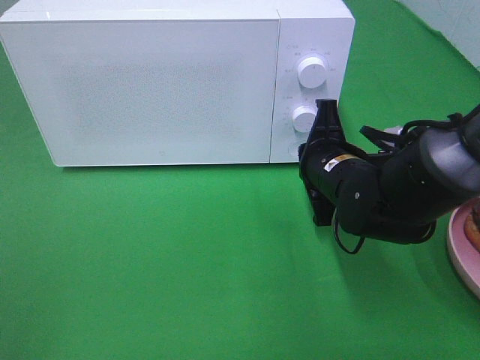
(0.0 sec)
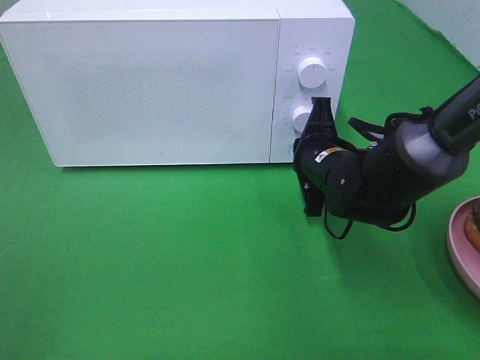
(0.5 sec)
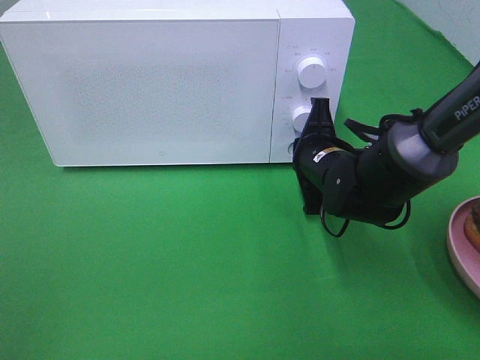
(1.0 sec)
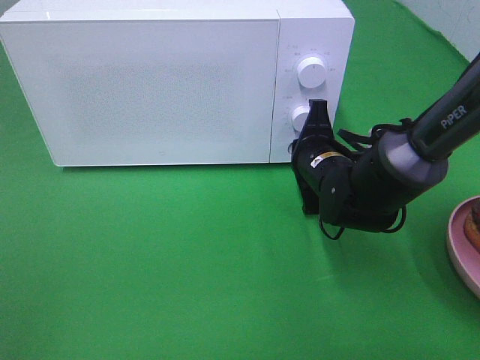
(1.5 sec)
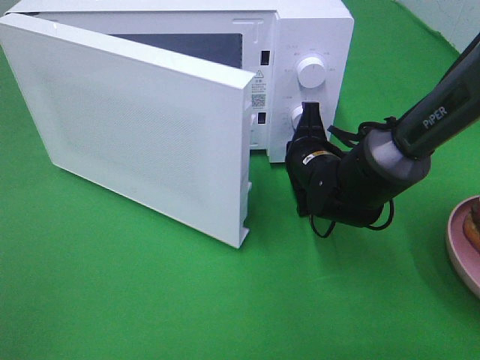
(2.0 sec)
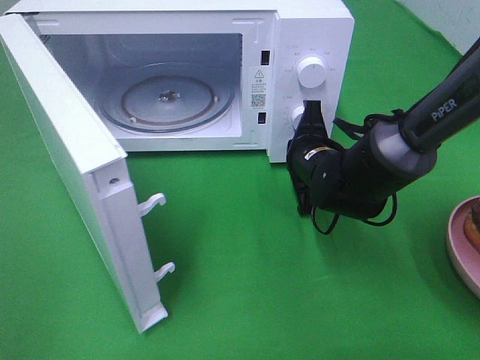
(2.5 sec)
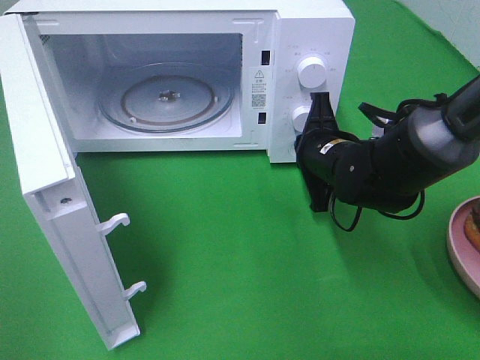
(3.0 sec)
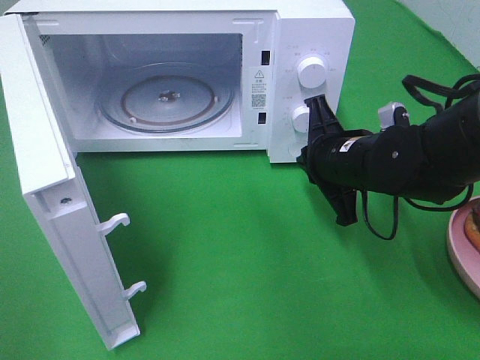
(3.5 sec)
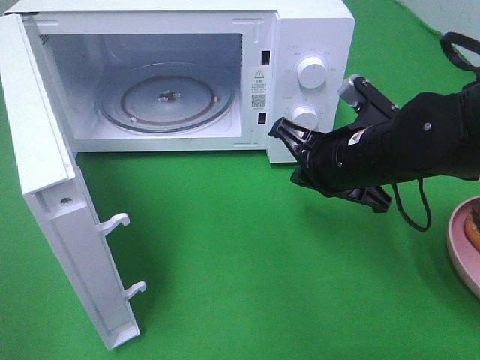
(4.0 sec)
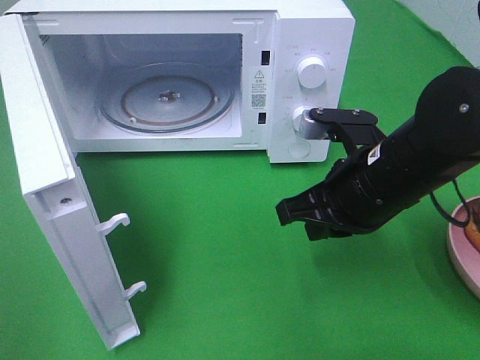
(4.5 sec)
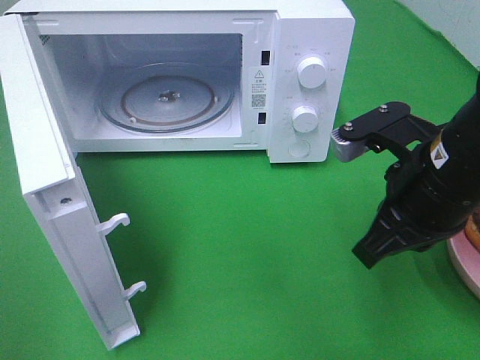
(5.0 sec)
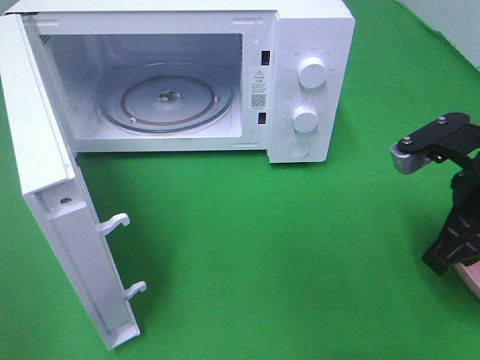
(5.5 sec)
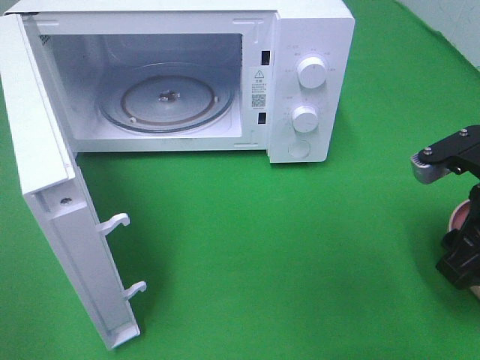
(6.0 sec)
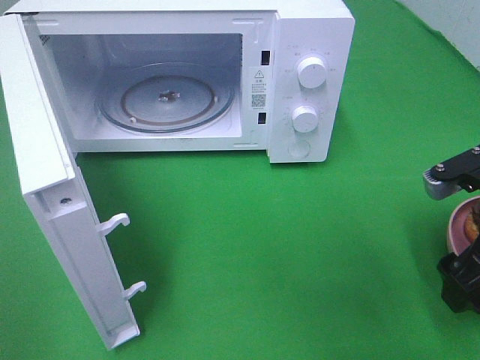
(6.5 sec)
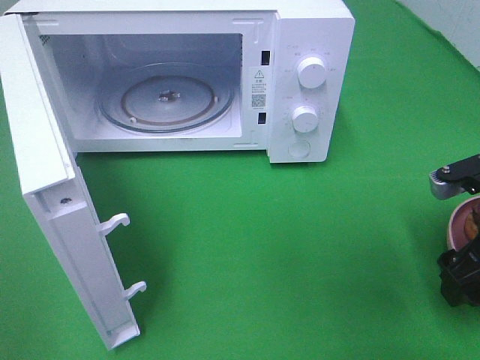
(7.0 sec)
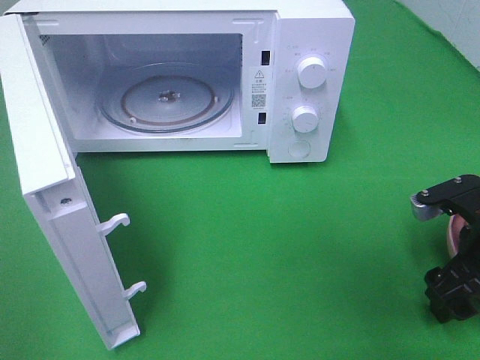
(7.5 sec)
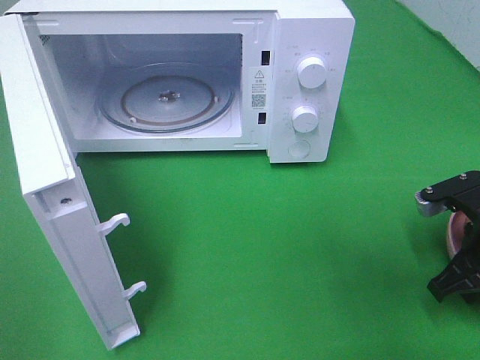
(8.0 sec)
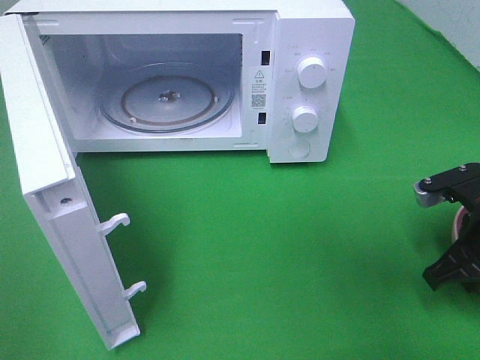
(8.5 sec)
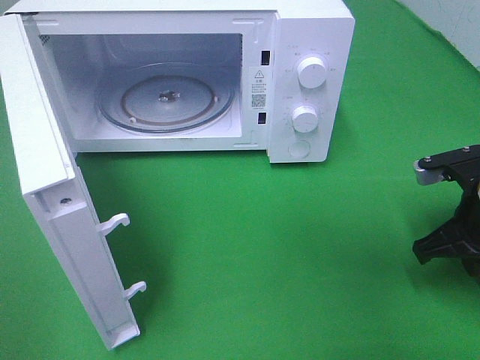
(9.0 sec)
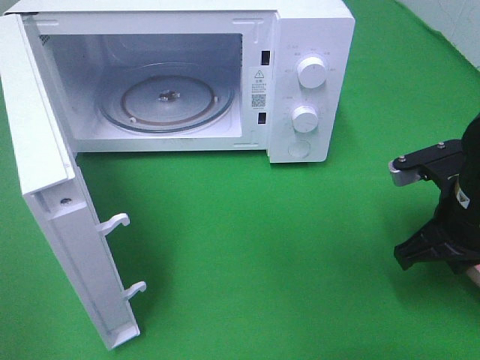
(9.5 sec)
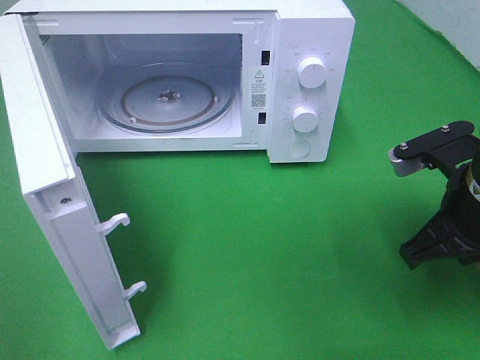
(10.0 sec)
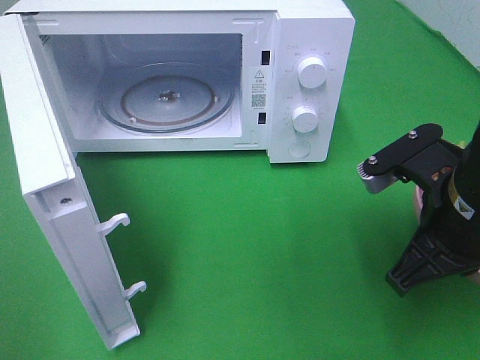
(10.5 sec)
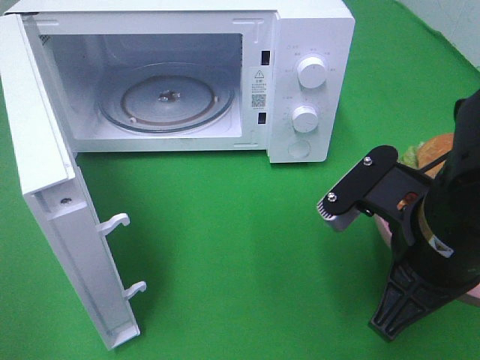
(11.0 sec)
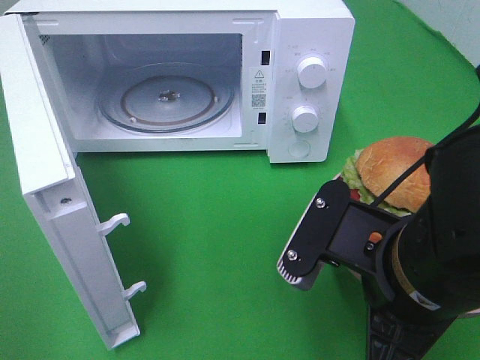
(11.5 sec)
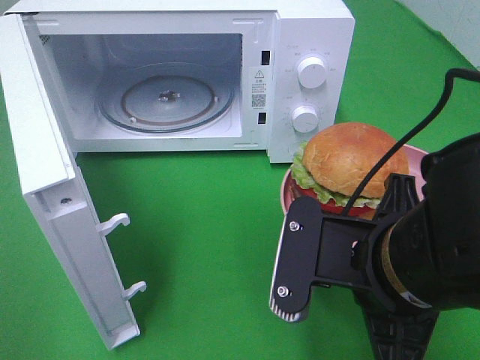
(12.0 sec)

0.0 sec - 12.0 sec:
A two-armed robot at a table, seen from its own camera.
Task of the whole recording: Heat the burger.
Step, 0.0 sec - 2.5 sec: Right hand: press the switch.
Step, 3.0 sec - 9.0 sec: Right hand: grab the plate with the hamburger.
0.0 sec - 2.0 sec: The right gripper moves approximately 5 cm.
2.0 sec - 4.0 sec: The right gripper goes approximately 10 cm upward and backward.
4.0 sec - 6.0 sec: The right gripper heads to the right and backward, covering roughly 15 cm, and opens up.
6.0 sec - 8.0 sec: The right gripper moves downward, some 10 cm, and closes up.
8.0 sec - 10.0 sec: The right gripper heads upward and to the left, covering about 10 cm.
10.0 sec - 12.0 sec: The right gripper moves to the left and backward, about 15 cm.

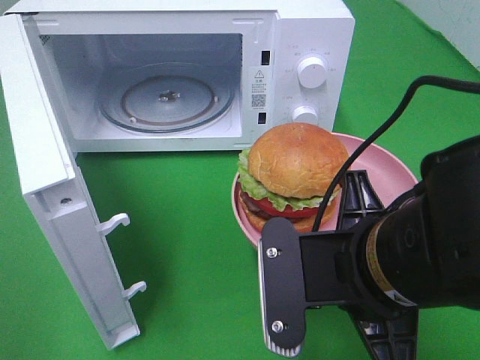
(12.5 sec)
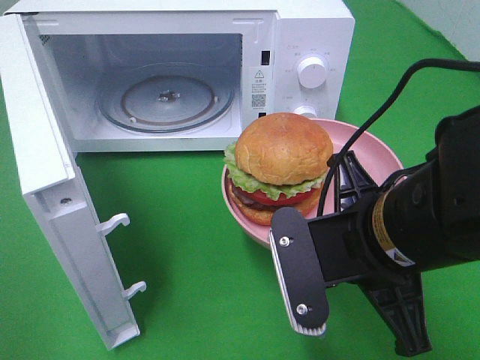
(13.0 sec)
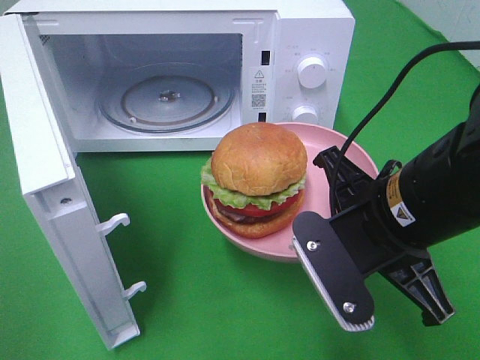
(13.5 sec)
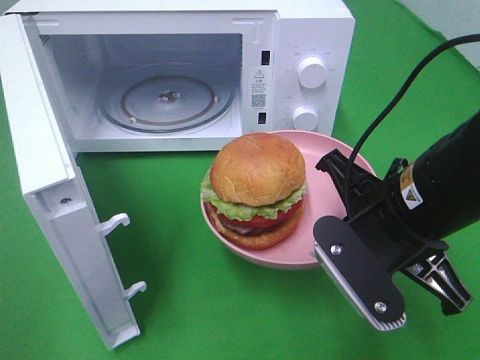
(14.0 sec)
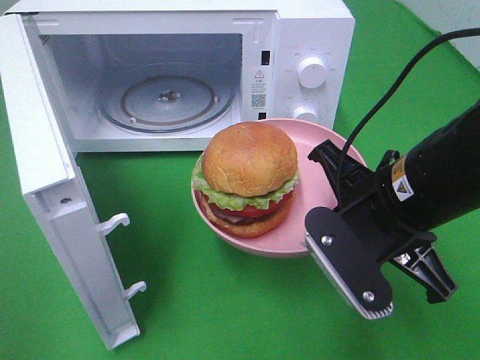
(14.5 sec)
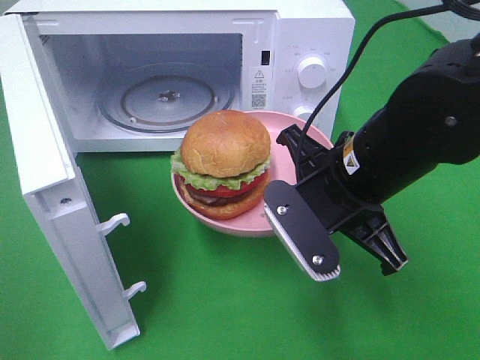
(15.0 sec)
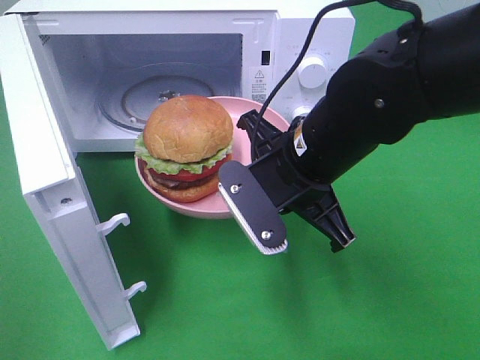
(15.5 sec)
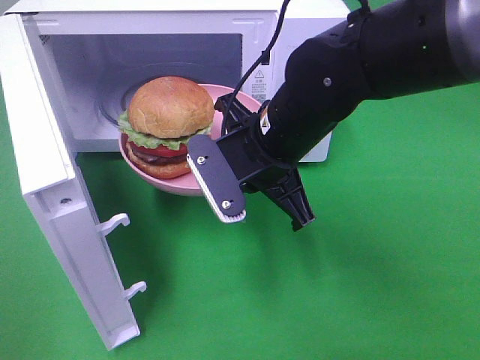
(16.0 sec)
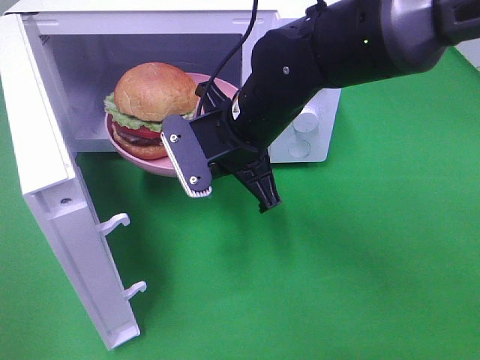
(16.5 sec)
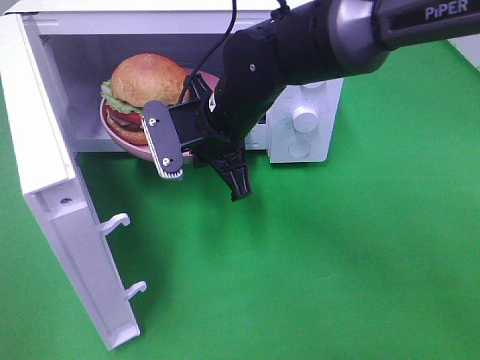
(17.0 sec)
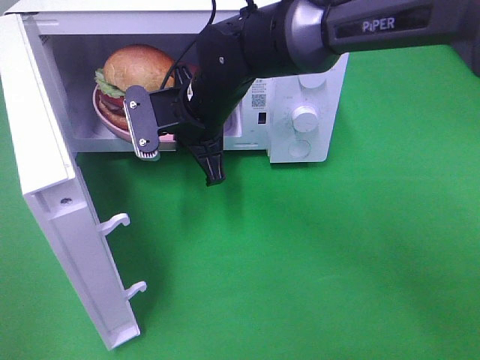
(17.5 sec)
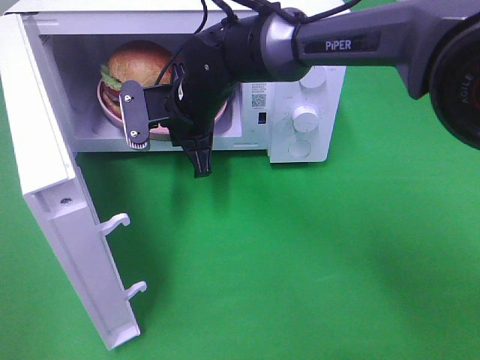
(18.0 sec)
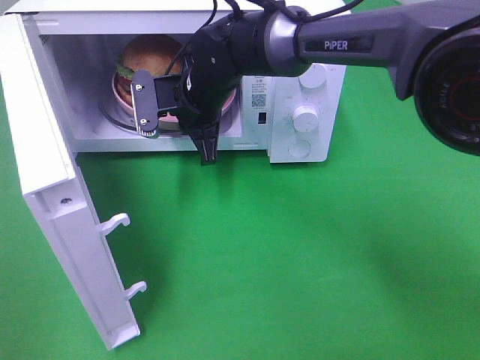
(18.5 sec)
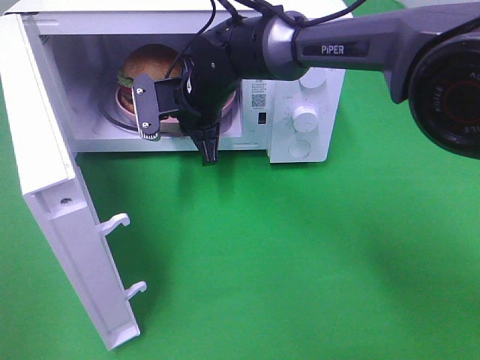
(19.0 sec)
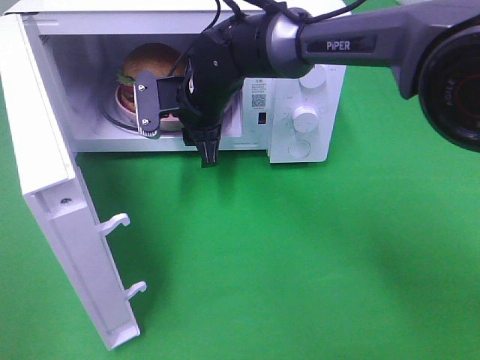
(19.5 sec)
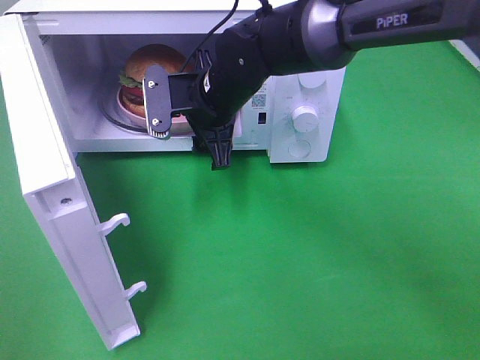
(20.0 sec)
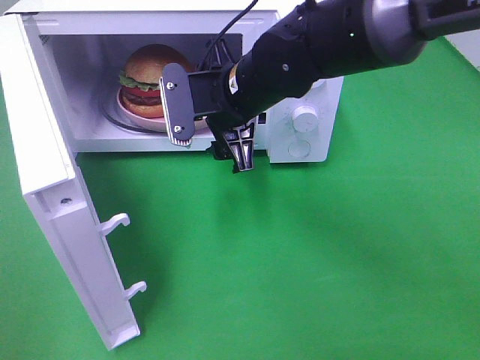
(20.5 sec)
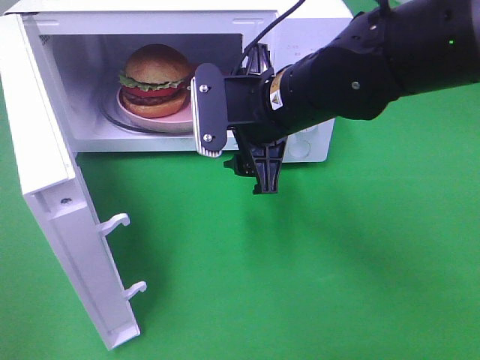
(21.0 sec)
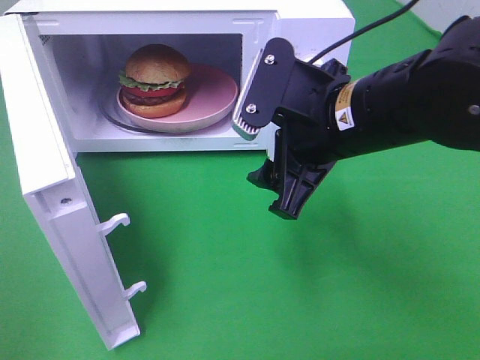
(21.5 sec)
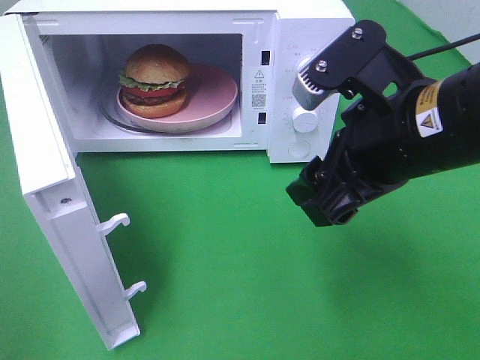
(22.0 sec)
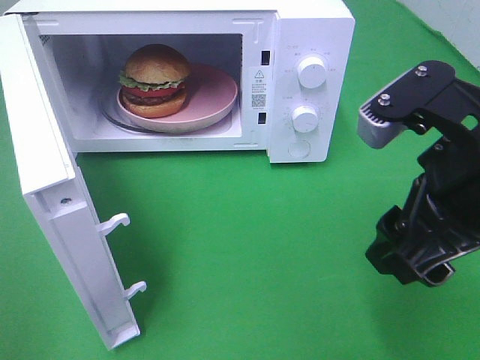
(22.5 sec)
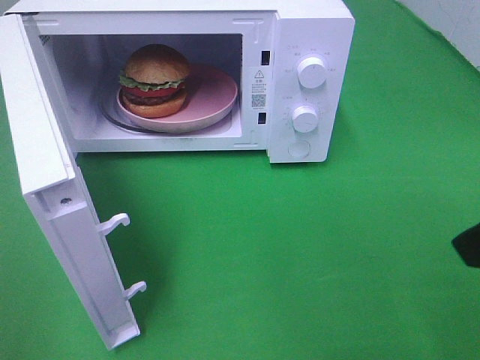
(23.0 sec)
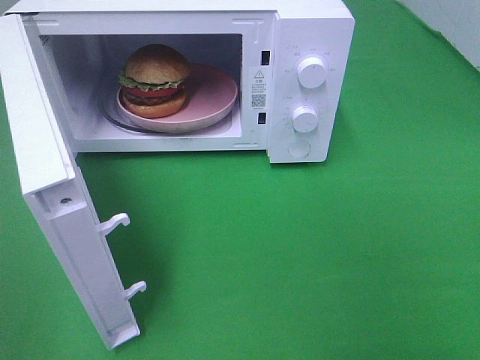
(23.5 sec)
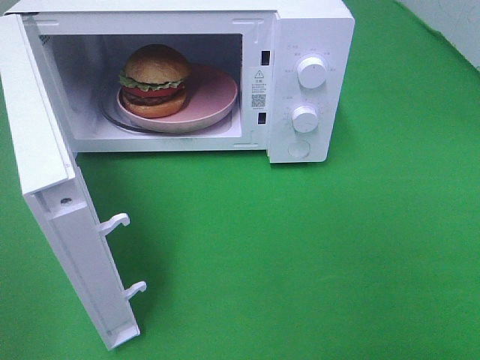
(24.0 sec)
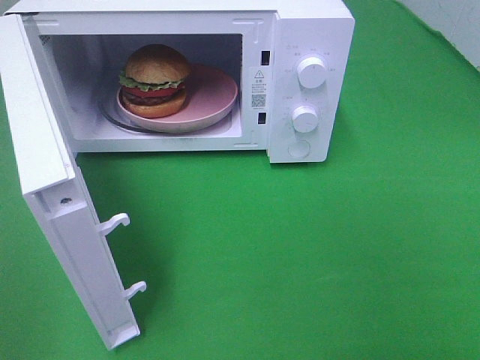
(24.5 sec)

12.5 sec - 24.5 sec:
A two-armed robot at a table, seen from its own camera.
Task of the whole recording: Heat the burger.
Step, 12.5 sec - 20.0 sec: Right hand: place the plate in the microwave.
12.5 sec - 14.5 sec: The right gripper is displaced forward by roughly 5 cm.
14.5 sec - 16.5 sec: The right gripper is displaced to the left and forward by roughly 15 cm.
16.5 sec - 18.5 sec: The right gripper goes approximately 10 cm forward and to the left.
18.5 sec - 20.5 sec: The right gripper heads backward and to the right, covering roughly 10 cm, and opens its fingers.
20.5 sec - 22.5 sec: The right gripper shifts some 25 cm backward and to the right.
22.5 sec - 24.5 sec: The right gripper is displaced backward and to the right by approximately 20 cm.

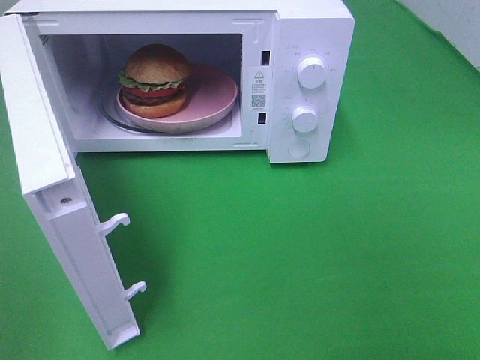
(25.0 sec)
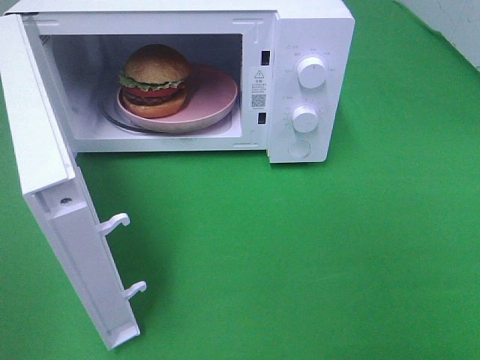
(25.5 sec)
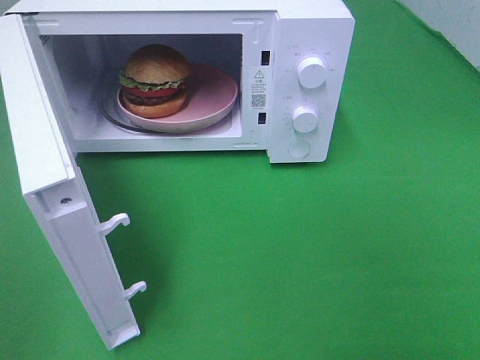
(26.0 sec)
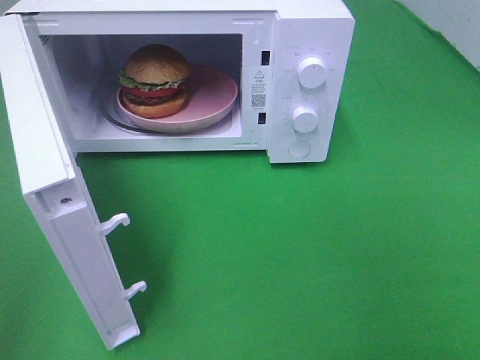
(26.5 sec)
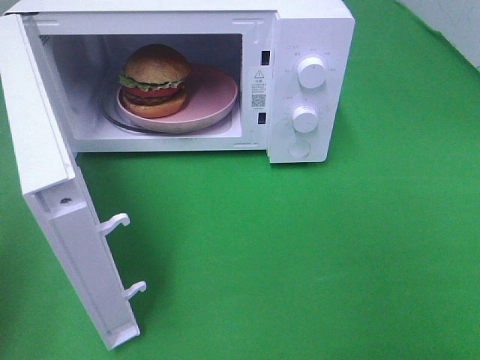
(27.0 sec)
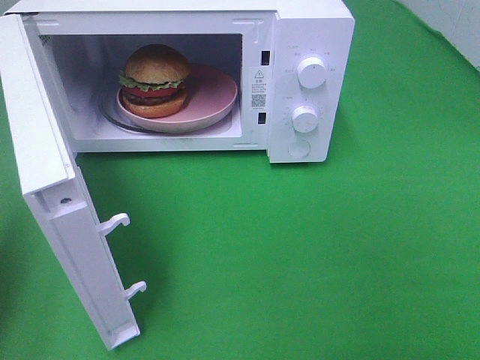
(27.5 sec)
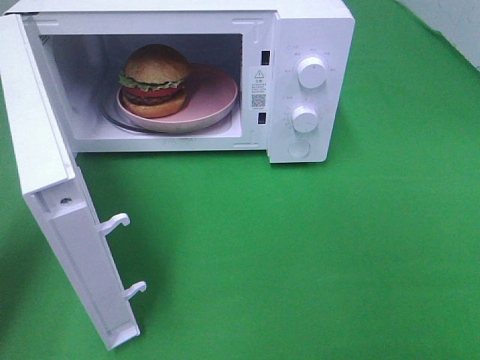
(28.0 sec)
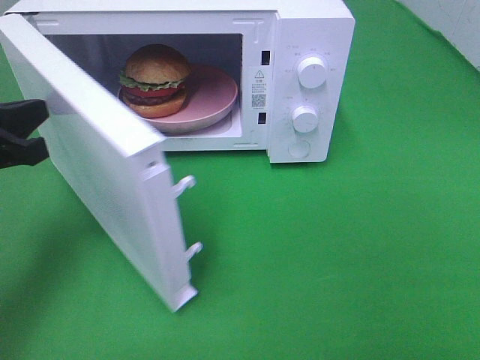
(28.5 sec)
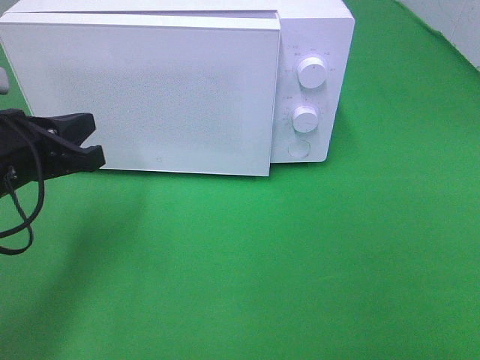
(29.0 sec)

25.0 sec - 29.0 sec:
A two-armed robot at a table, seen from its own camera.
Task of the whole recording: Heat the burger.
27.0 sec - 29.0 sec: The left gripper goes roughly 20 cm forward, downward and to the right.
